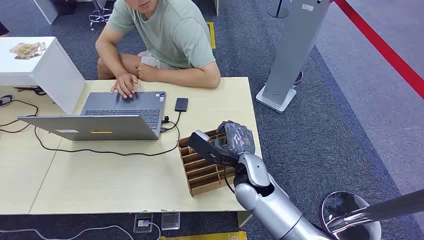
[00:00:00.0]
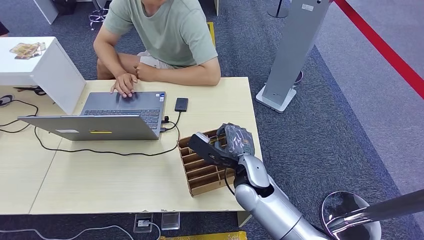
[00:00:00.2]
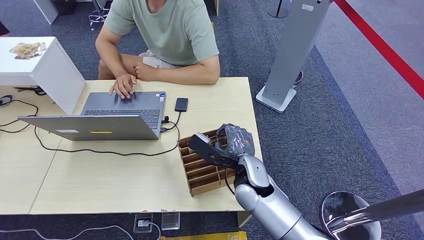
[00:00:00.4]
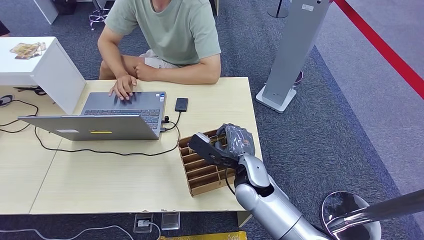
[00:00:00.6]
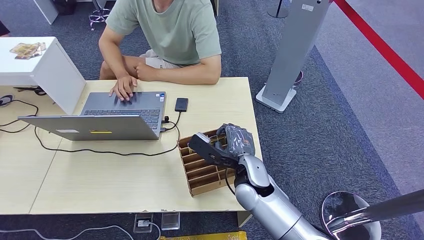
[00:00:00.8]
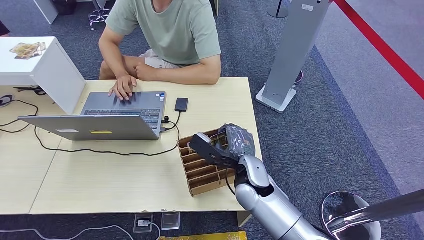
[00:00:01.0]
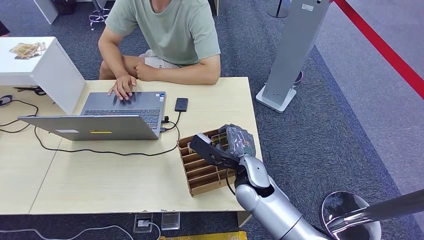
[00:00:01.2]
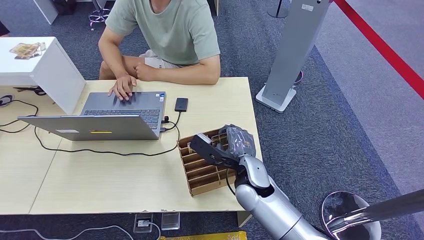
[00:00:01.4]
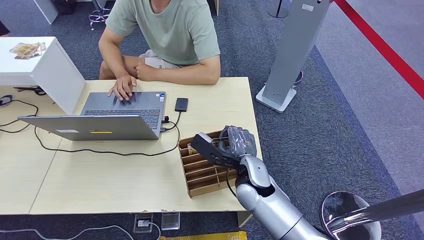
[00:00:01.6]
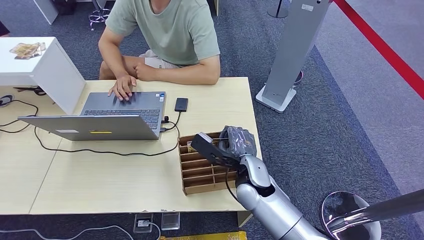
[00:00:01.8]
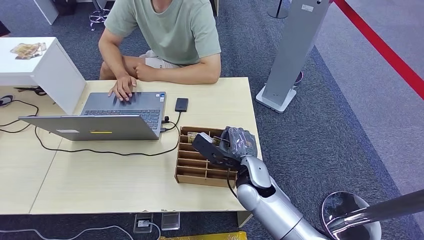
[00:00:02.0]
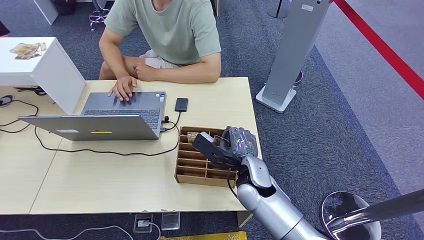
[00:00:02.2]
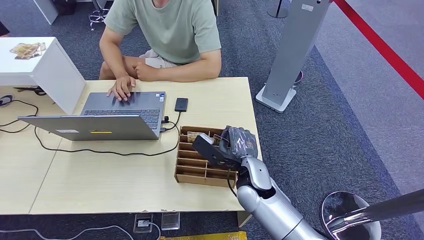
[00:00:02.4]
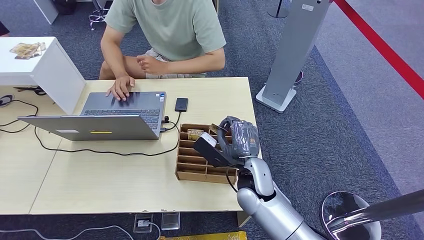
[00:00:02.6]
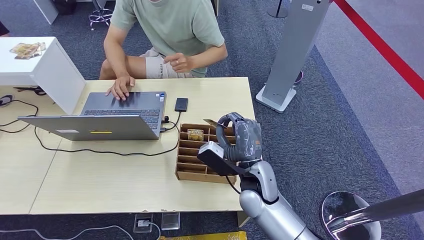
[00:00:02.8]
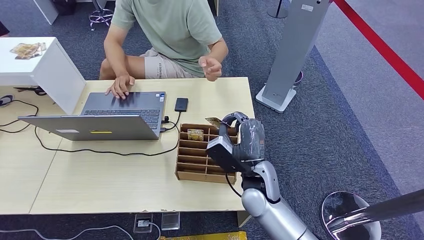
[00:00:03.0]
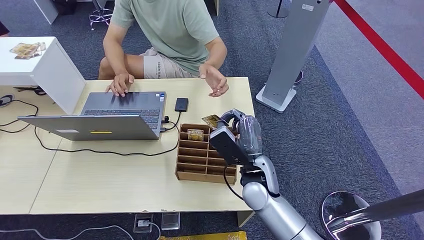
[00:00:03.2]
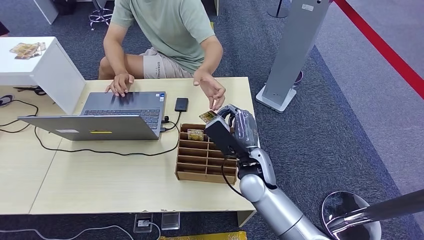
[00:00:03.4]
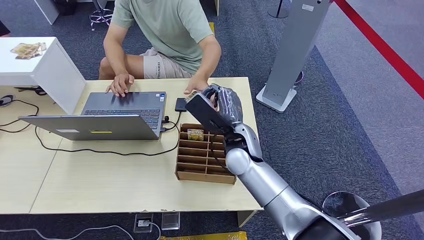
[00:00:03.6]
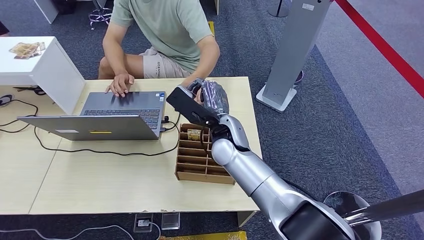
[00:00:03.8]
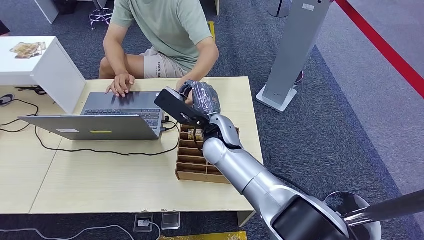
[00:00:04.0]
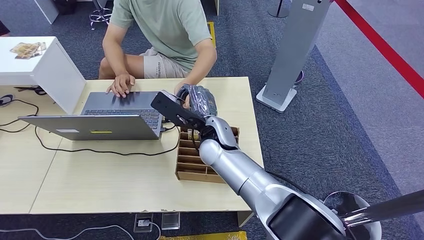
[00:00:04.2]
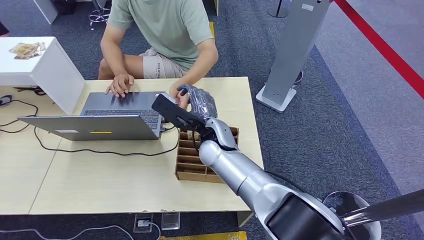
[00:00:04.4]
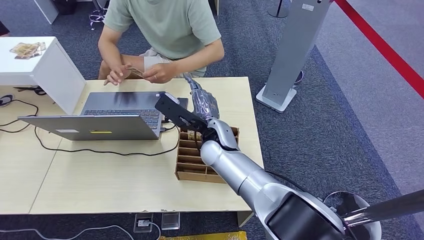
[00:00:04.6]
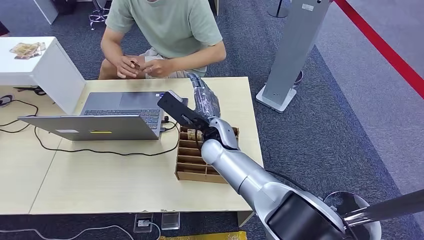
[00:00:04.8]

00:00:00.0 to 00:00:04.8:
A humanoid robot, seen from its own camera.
Step, 00:00:00.0 to 00:00:03.0: Pick up the room card from the card holder.
Step, 00:00:03.6 to 00:00:04.6: Hand the room card to the target.
00:00:03.2 to 00:00:04.8: The right hand is displaced upward and forward by about 10 cm.
